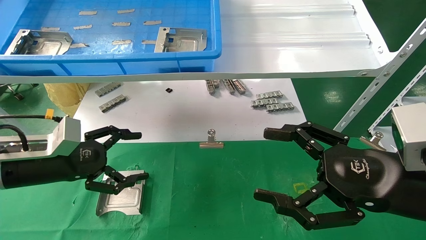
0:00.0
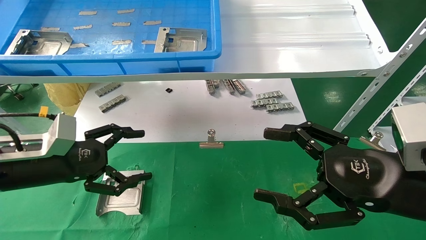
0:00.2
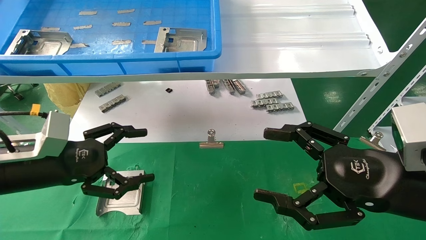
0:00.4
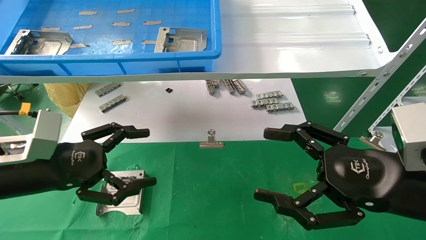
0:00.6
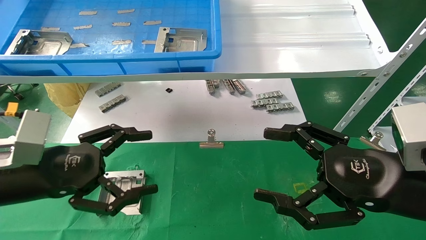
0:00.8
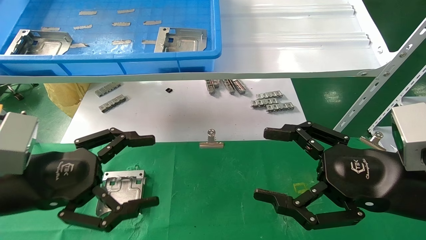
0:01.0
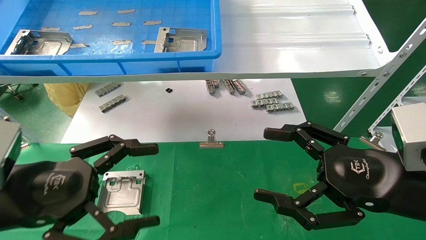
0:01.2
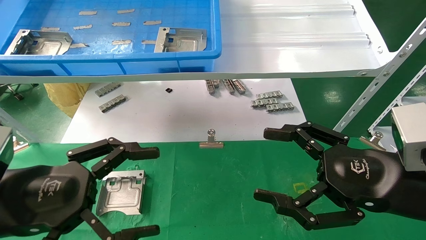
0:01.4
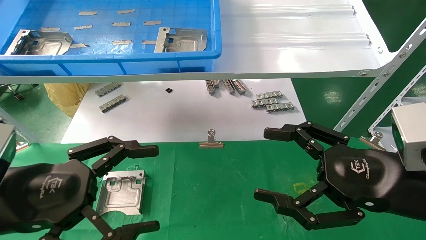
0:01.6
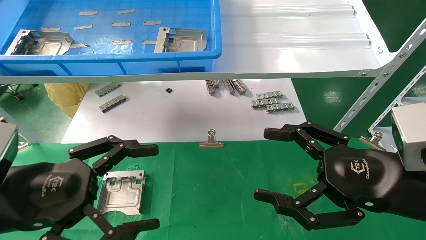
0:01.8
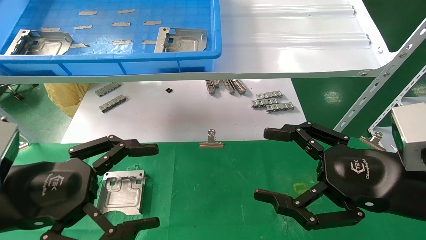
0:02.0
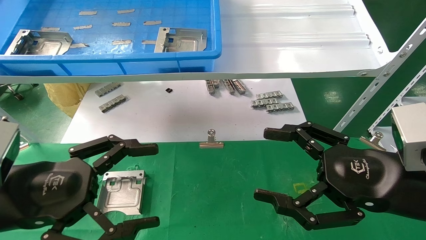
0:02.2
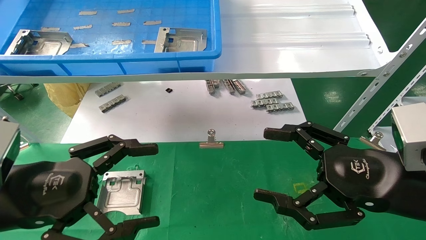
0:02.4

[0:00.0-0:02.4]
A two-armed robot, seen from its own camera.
Task of the whole recording: use the mechanical arm to pick up the parts and place them on the table.
0:00.0 to 0:01.2: The left gripper travels backward by some 10 cm.
0:01.2 to 0:02.4: Both grippers stay put.
